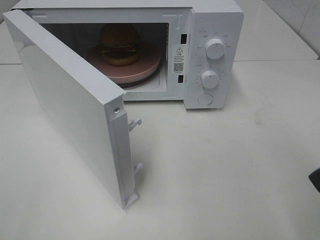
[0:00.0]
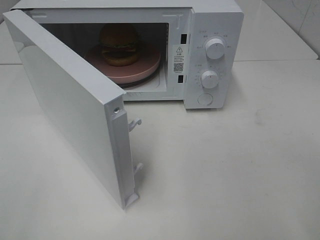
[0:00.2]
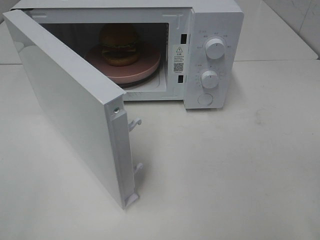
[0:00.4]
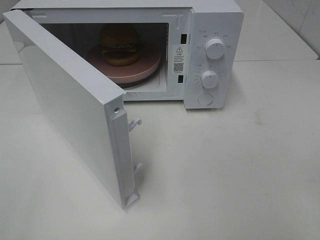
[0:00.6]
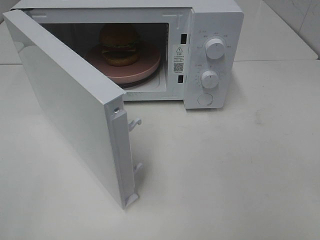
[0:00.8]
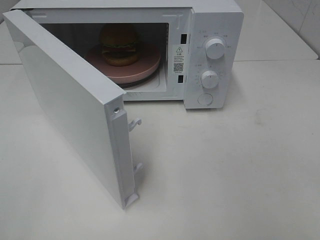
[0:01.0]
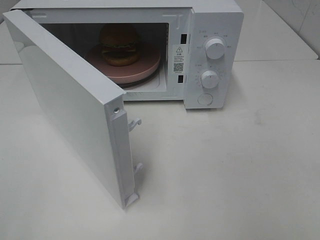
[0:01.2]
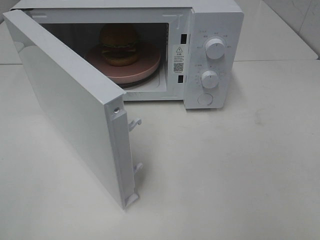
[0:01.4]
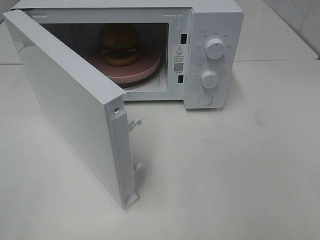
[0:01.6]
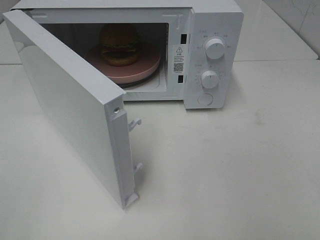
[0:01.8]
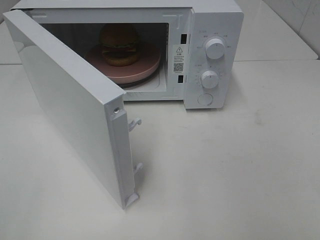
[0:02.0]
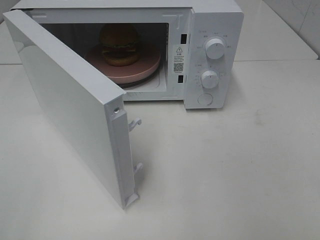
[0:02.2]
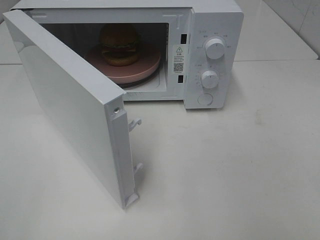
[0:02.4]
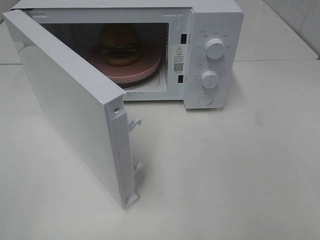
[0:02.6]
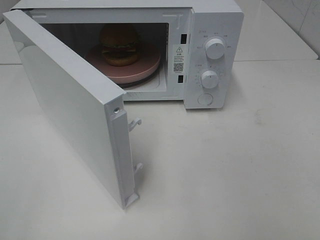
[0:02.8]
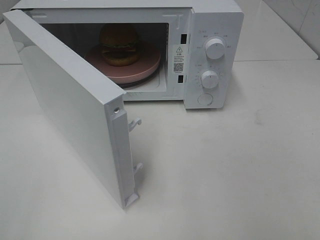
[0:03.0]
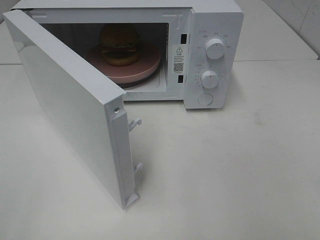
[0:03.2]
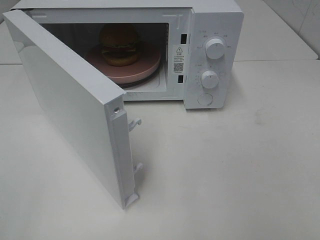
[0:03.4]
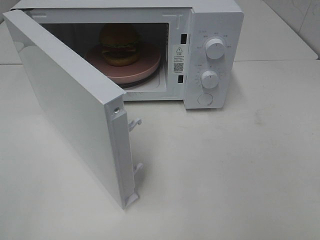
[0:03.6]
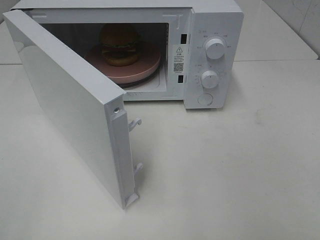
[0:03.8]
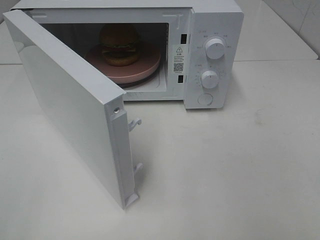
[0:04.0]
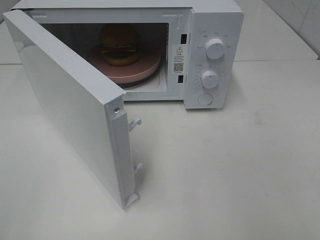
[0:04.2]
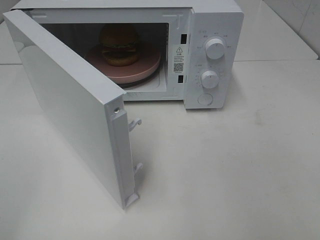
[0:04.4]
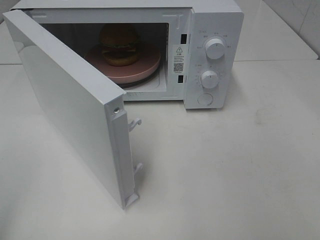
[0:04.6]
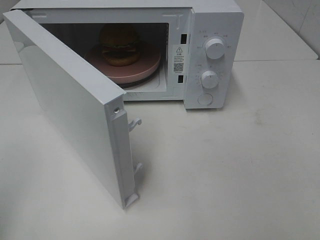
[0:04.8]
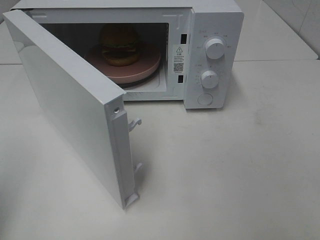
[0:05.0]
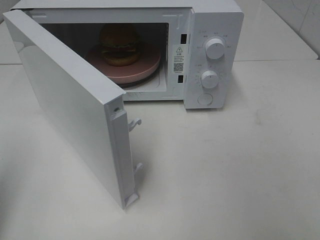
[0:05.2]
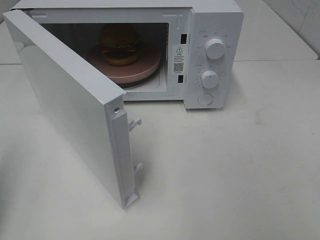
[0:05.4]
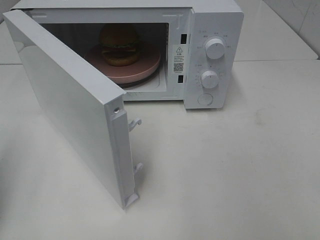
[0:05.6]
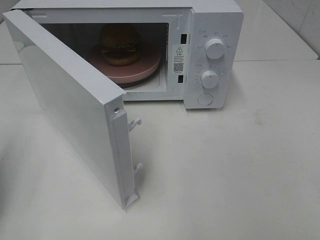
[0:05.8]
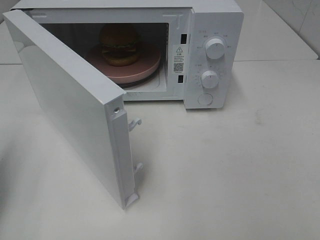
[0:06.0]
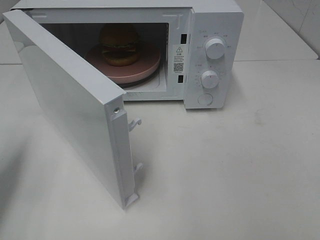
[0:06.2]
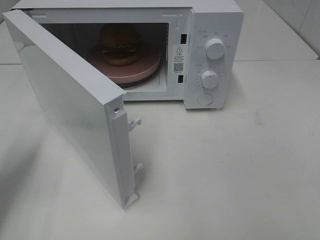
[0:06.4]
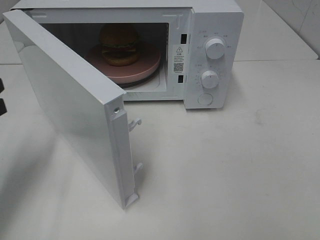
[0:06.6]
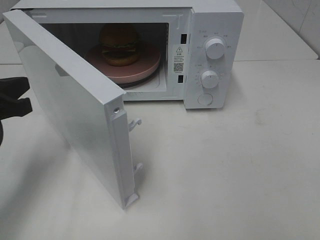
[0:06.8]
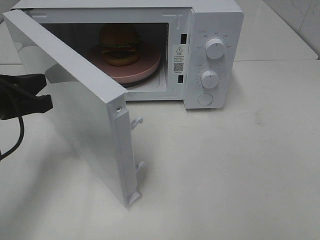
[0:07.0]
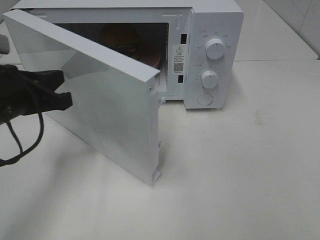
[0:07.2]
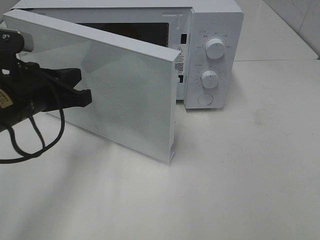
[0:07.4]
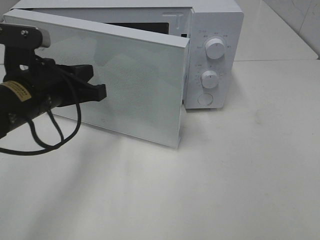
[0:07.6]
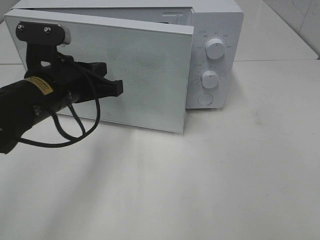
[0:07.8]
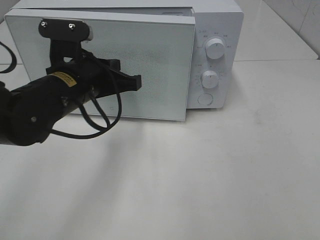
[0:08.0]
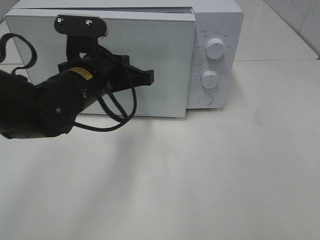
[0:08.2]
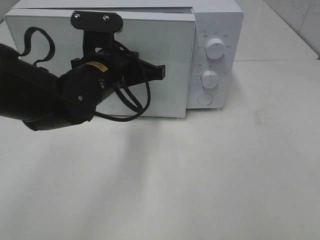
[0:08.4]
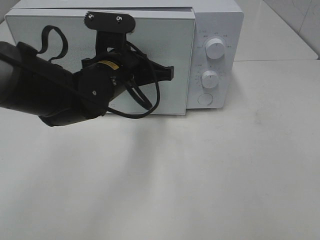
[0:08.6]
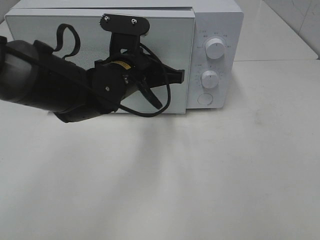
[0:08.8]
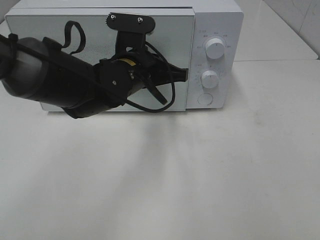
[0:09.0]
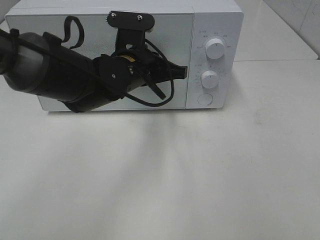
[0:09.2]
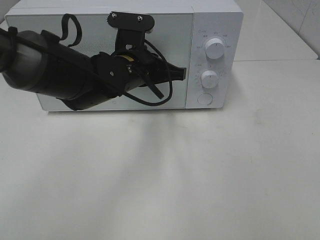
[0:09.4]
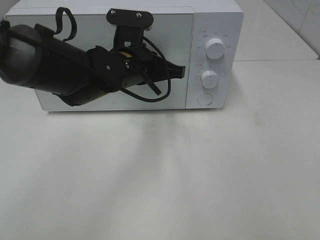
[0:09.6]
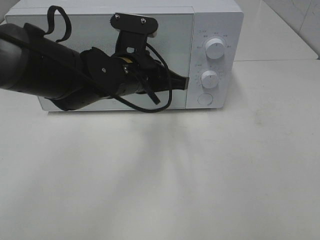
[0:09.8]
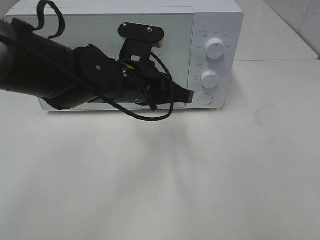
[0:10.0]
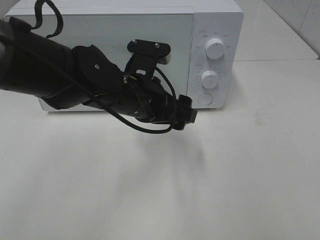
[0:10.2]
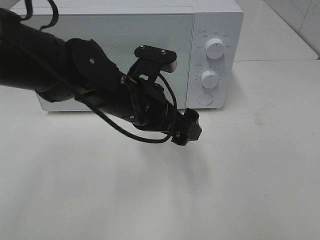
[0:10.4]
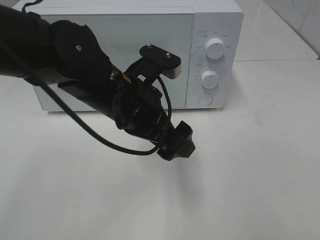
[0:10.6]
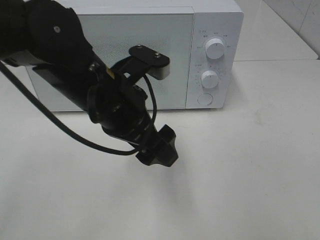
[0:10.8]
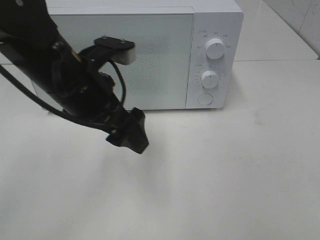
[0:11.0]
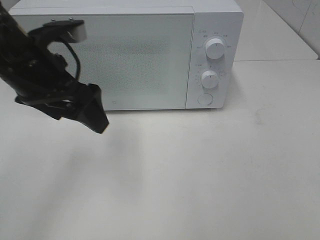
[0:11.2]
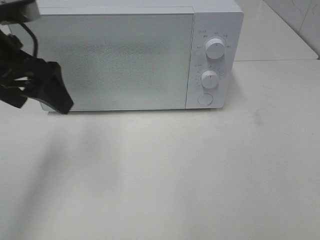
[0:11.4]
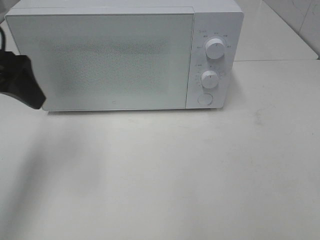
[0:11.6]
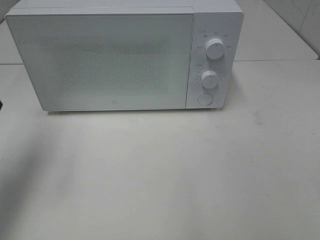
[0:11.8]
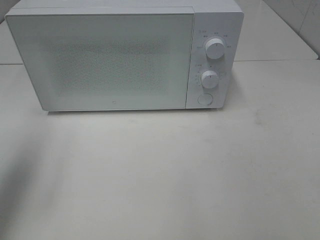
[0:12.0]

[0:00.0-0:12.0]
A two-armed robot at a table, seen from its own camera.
Task of the whole recording: Heat the burger.
Step, 0:00.0 to 0:09.6: Left hand: close the microwave door.
0:01.6 to 0:03.0: Neither gripper changes place.
0:04.4 to 0:06.0: The left gripper travels forward and downward by roughly 15 cm, and closes up.
0:06.0 to 0:07.6: The left gripper travels to the right and forward by roughly 20 cm.
0:07.6 to 0:09.0: The left gripper is displaced to the right and forward by about 15 cm.
0:09.0 to 0:10.4: The left gripper travels backward by roughly 5 cm, and opens its fingers.
0:10.4 to 0:12.0: The left gripper is displaced to the left and upward by about 30 cm.

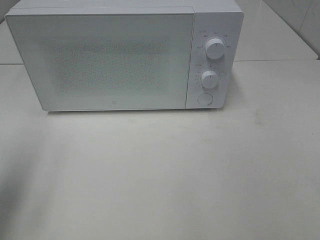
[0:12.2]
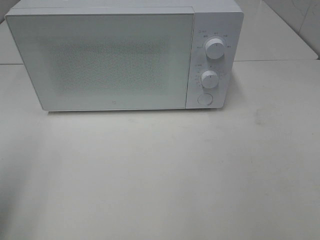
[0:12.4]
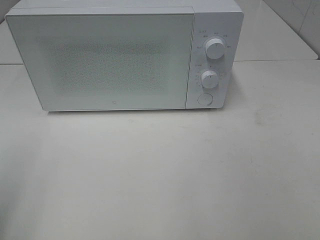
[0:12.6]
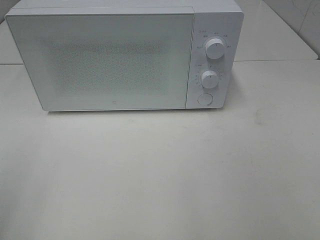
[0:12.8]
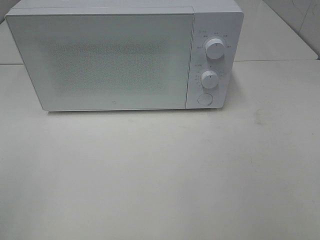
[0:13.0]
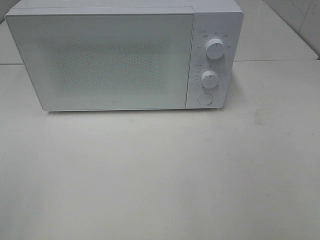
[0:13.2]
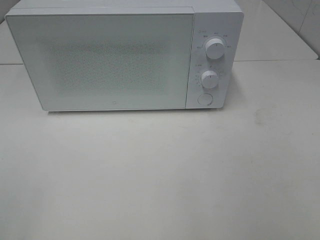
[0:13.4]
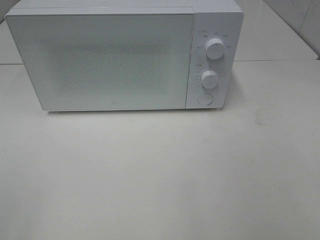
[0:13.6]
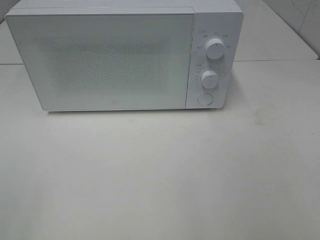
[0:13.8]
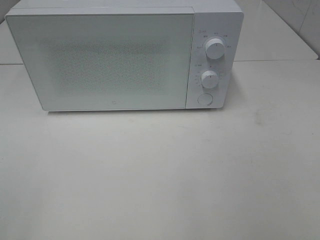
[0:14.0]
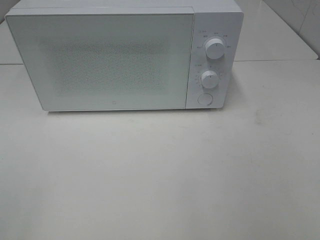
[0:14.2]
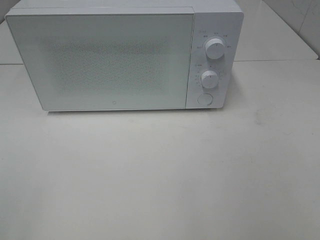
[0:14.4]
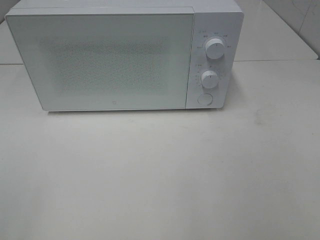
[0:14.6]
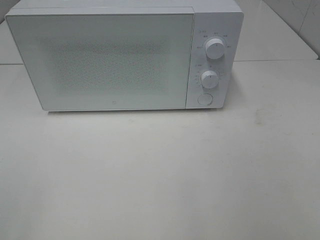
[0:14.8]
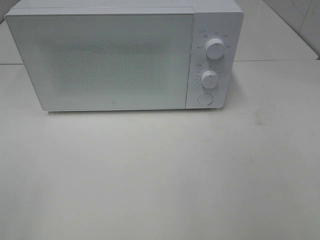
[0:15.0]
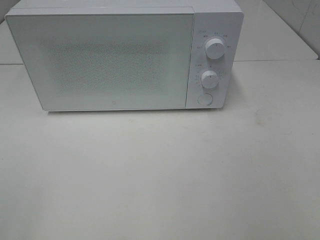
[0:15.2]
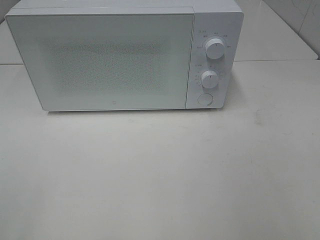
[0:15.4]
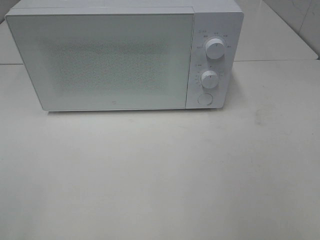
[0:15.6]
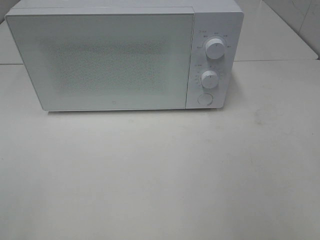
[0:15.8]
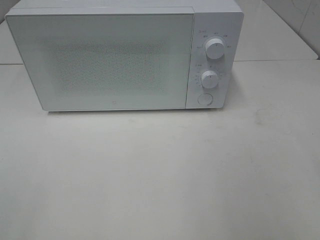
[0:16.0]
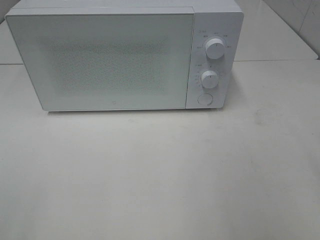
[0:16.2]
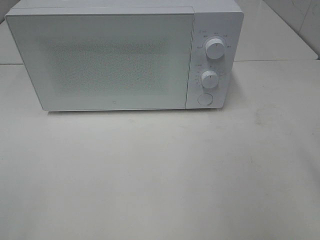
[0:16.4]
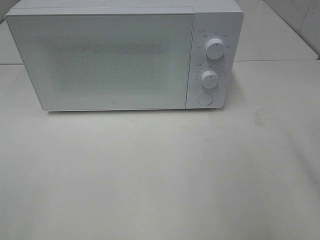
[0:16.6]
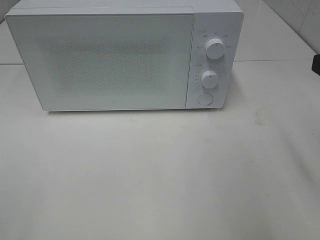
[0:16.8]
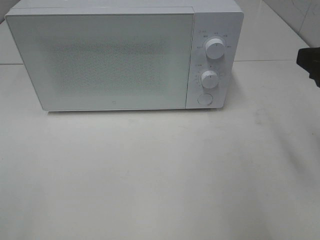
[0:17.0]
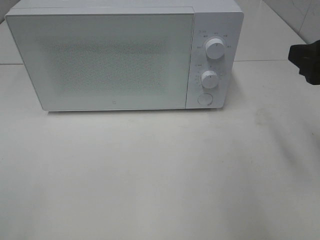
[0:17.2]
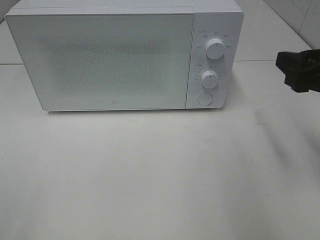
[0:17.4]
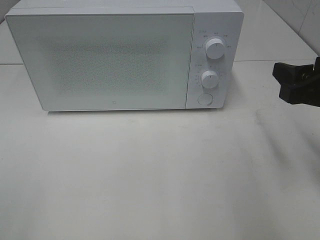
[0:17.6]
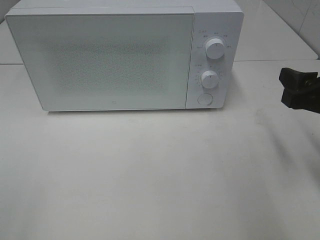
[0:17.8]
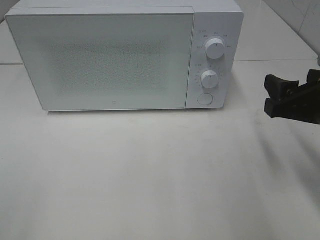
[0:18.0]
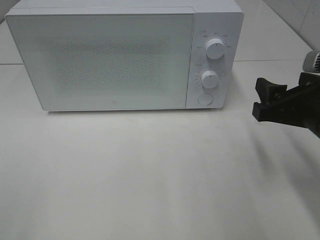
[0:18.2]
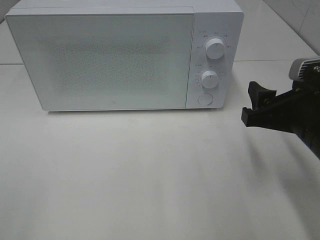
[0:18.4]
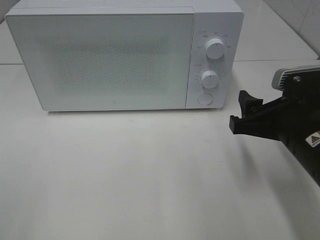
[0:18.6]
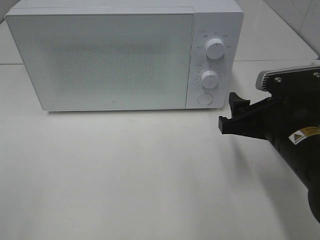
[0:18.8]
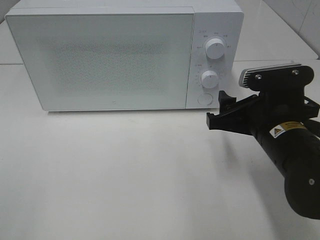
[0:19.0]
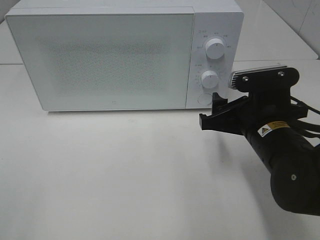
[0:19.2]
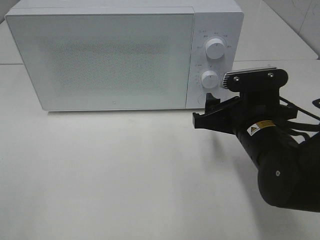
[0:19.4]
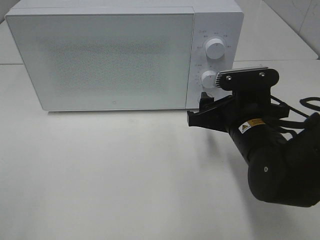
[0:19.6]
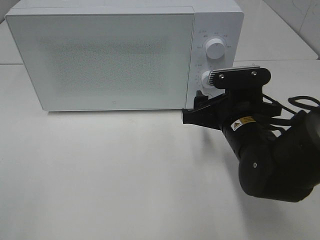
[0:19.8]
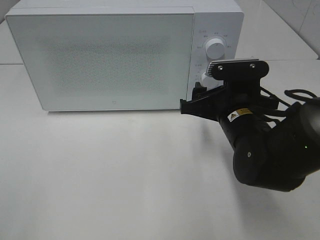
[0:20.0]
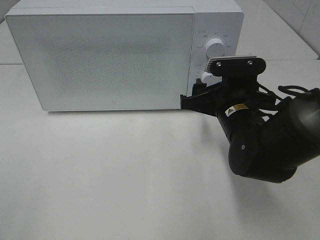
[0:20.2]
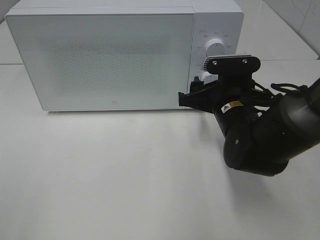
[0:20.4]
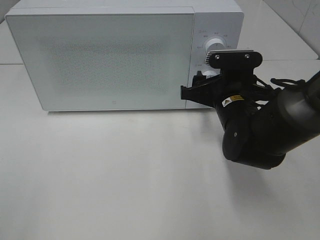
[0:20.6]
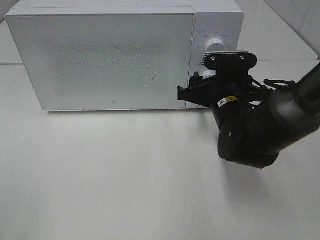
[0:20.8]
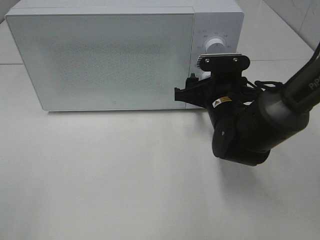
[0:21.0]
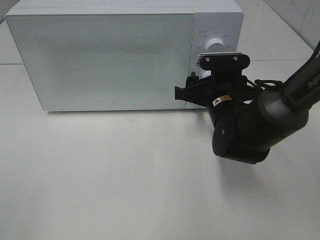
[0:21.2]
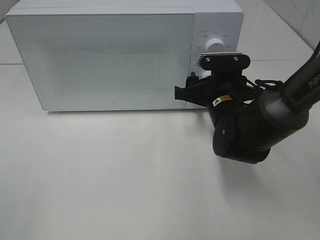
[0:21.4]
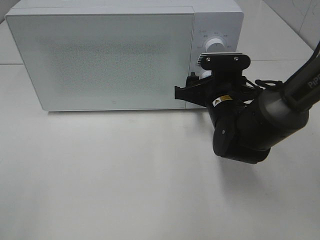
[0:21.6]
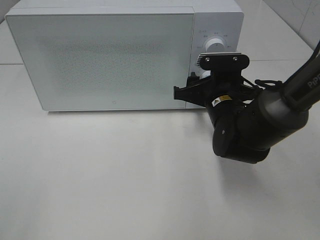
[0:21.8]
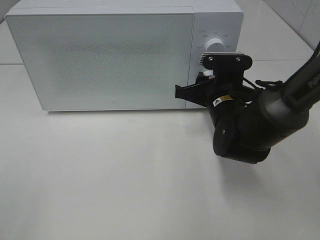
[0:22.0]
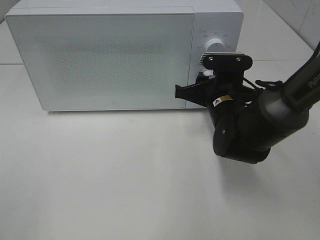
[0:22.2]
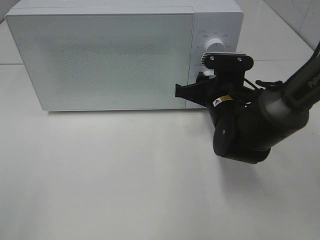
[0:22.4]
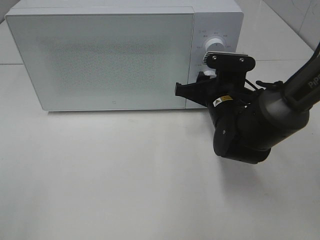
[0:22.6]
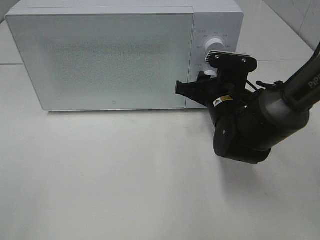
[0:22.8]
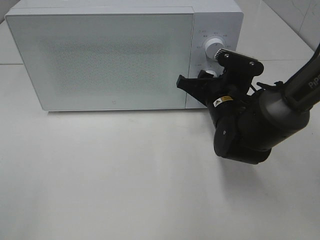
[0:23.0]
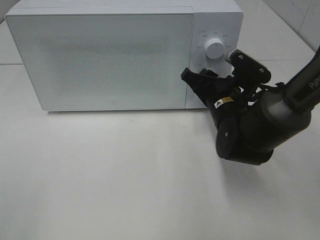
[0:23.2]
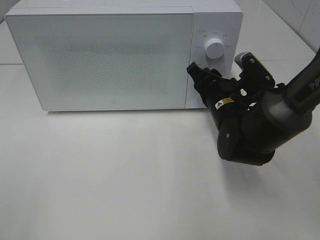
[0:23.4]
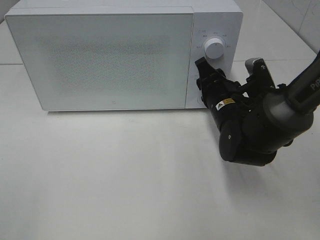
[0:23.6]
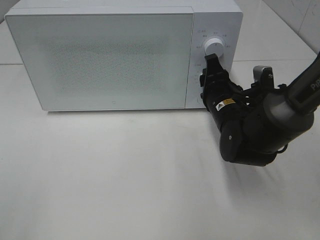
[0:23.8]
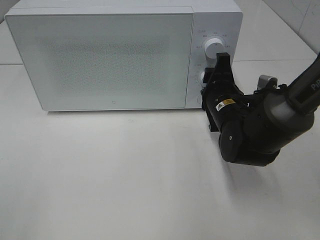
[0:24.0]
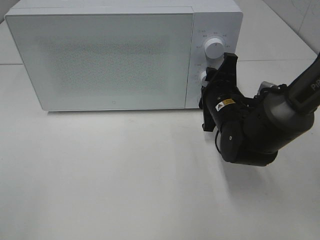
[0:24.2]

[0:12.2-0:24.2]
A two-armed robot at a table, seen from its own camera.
Task of the whole recording: Heat the burger.
0:12.2 to 0:13.8: The left gripper is displaced backward by roughly 15 cm.
0:13.8 to 0:15.2: The two grippers keep their place.
0:16.6 to 0:18.2: The right gripper shifts approximately 10 cm downward and forward.
0:18.2 to 0:19.8: The right gripper is displaced to the left, downward and forward by approximately 10 cm.
0:19.8 to 0:21.2: The right gripper shifts approximately 5 cm forward.
0:21.2 to 0:22.6: The right gripper closes its fingers.
